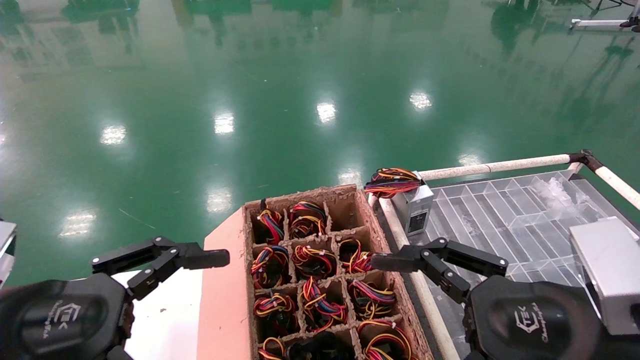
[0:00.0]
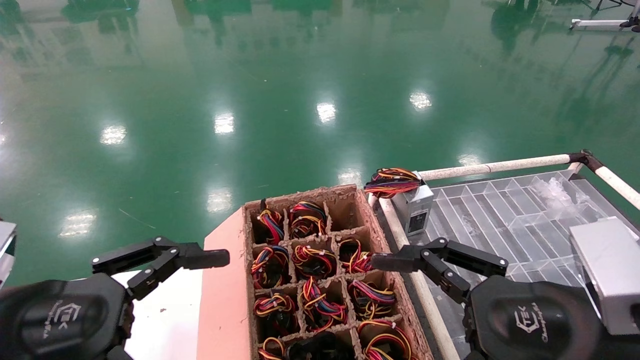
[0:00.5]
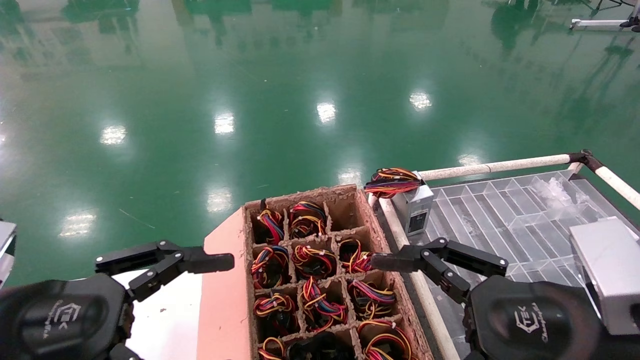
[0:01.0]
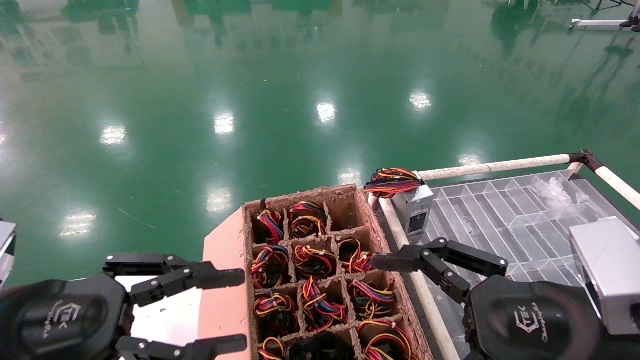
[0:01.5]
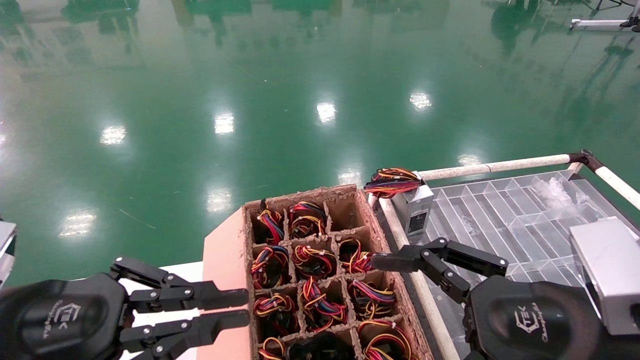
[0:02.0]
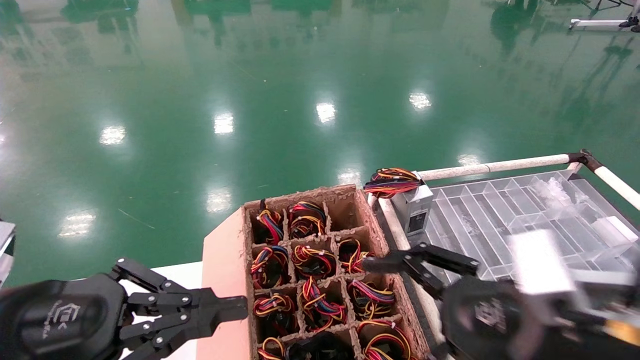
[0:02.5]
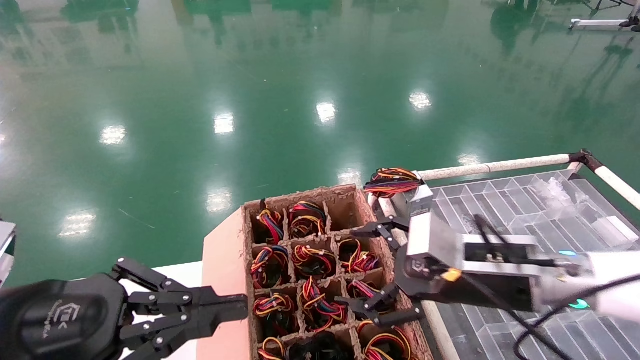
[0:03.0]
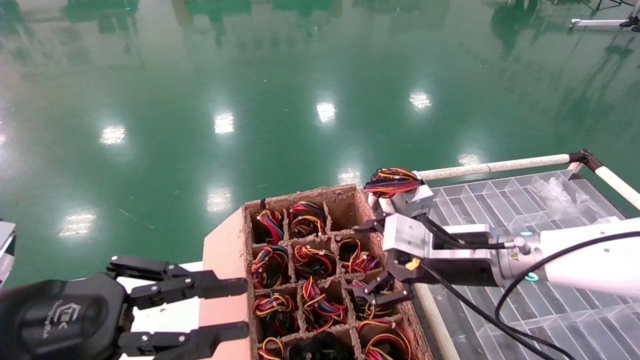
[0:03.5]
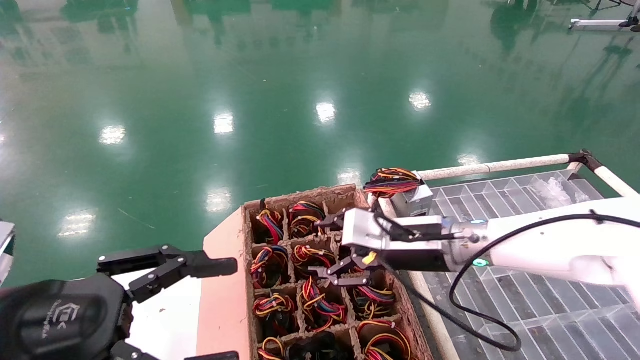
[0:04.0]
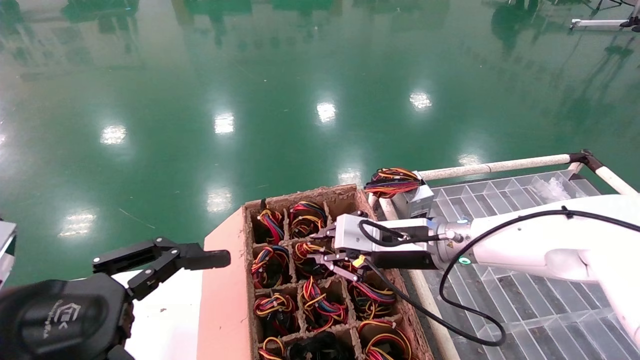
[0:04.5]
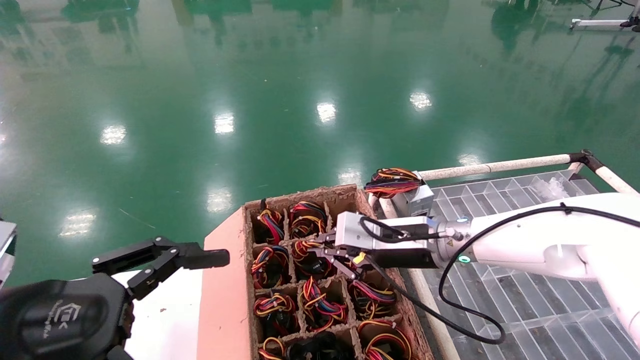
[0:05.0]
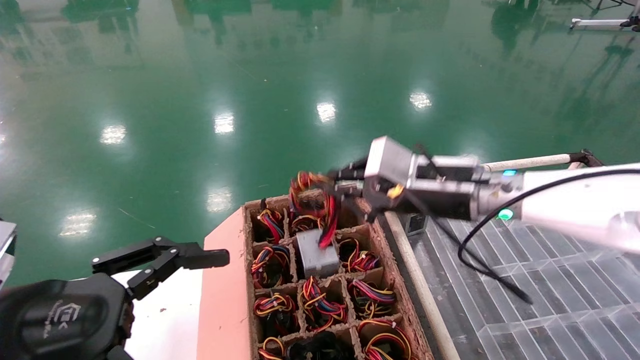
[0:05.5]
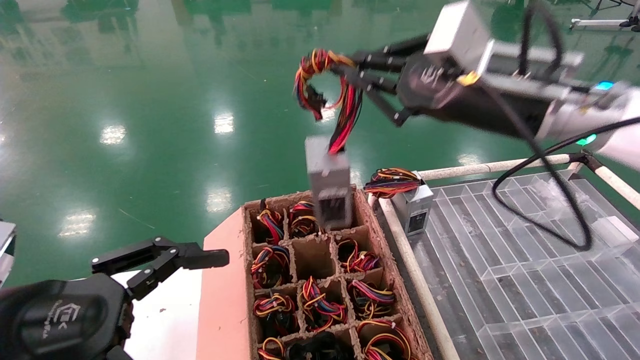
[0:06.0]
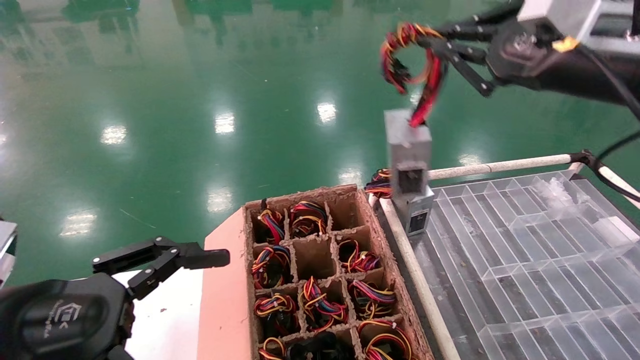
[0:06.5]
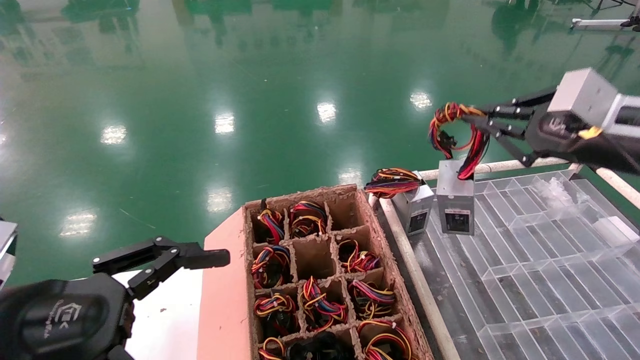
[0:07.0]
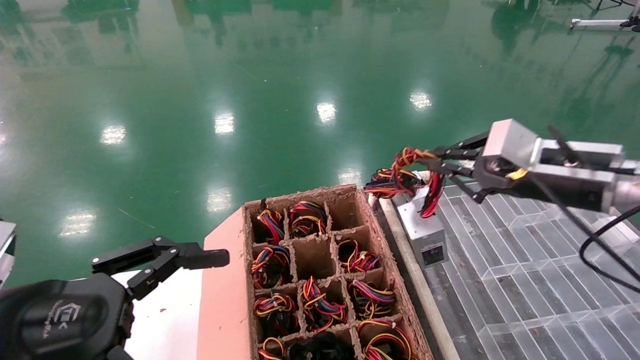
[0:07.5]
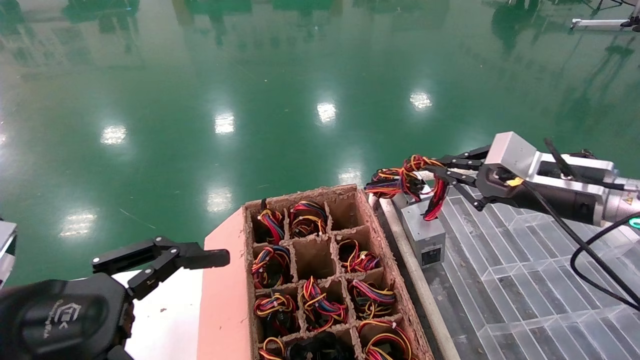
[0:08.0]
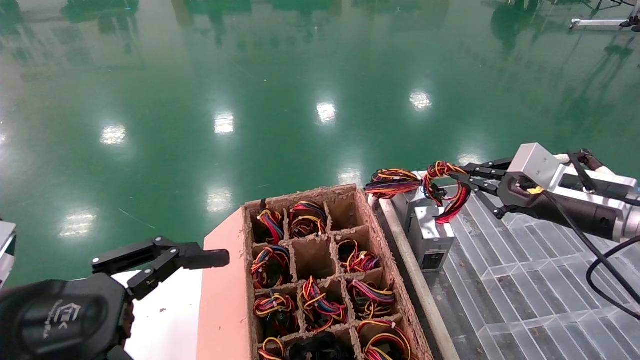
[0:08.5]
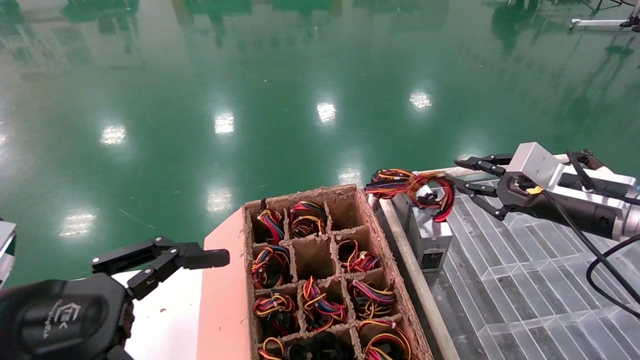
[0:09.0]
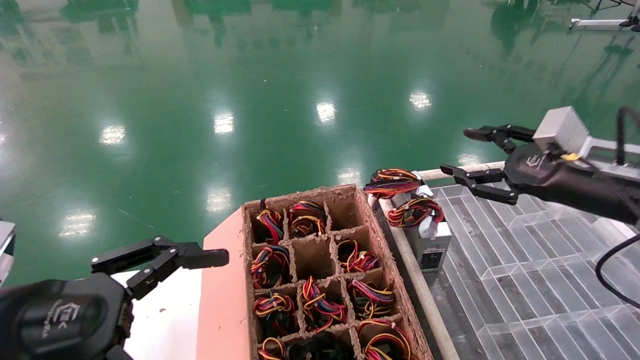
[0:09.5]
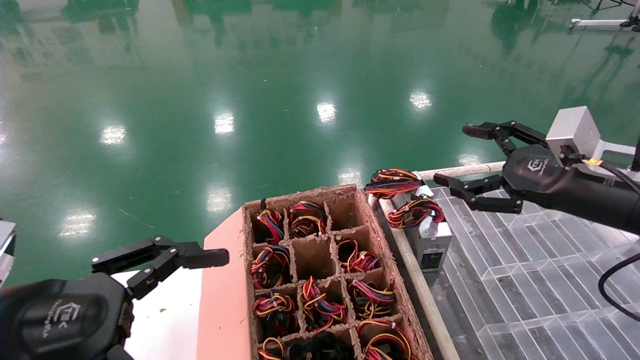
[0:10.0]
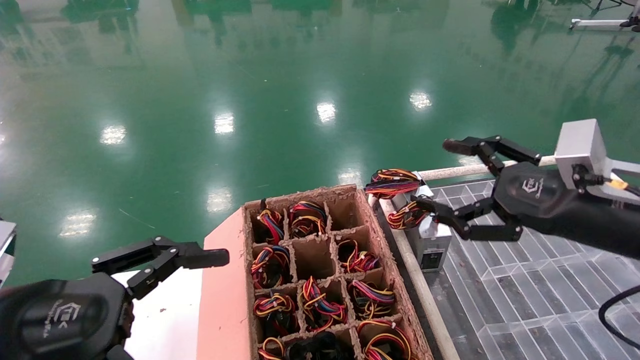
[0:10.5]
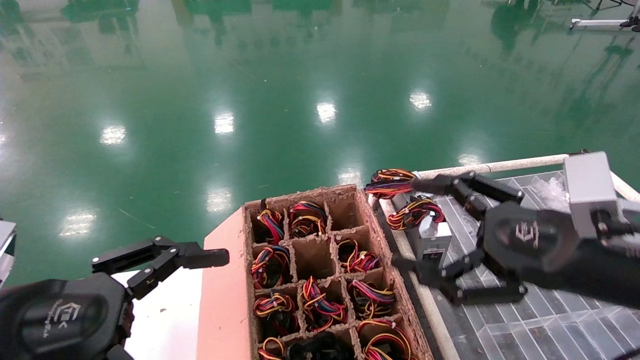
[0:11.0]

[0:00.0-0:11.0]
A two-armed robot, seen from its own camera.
Step, 0:02.5 to 0:05.0: Grab and lift the power supply from the large box.
Step, 0:05.5 to 0:08.5: Place the power supply on the operating table.
0:00.0 to 0:02.0: The left gripper closes its fingers.
0:02.0 to 0:03.5: The right gripper shifts some 20 cm forward.
0:03.5 to 0:05.5: The left gripper opens up; the right gripper travels upward by about 10 cm, and closes its fingers.
0:05.5 to 0:07.5: The right gripper goes some 15 cm to the right.
0:07.5 to 0:09.0: The right gripper moves about 5 cm.
0:09.0 to 0:11.0: The right gripper shifts some 15 cm backward and to the left, and opens its fingers.
